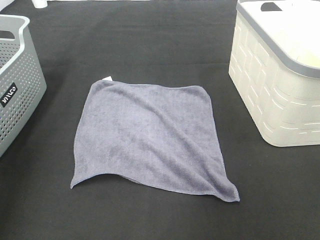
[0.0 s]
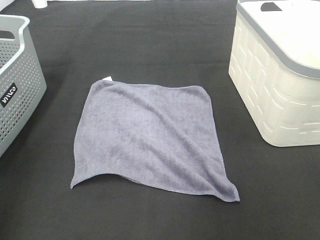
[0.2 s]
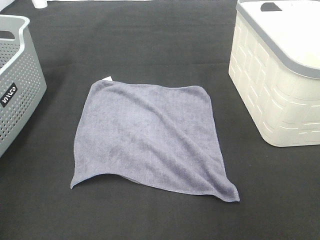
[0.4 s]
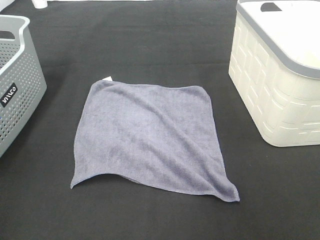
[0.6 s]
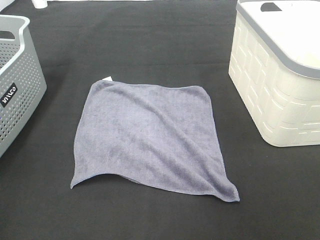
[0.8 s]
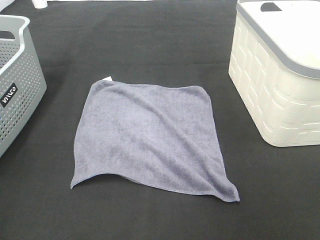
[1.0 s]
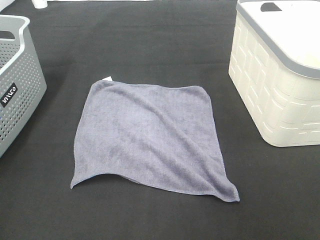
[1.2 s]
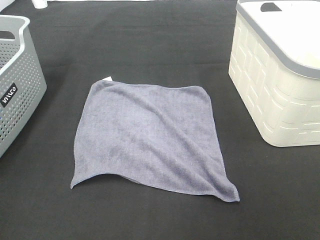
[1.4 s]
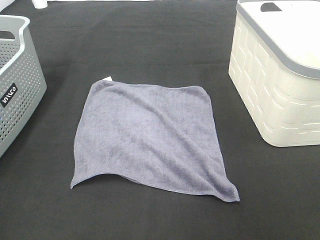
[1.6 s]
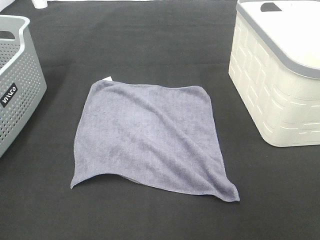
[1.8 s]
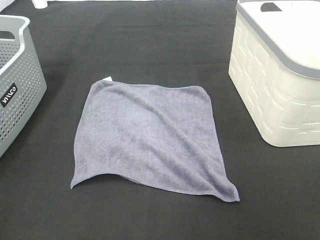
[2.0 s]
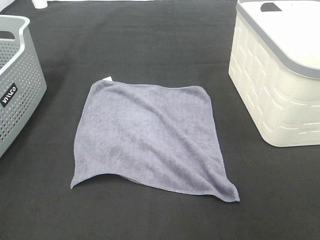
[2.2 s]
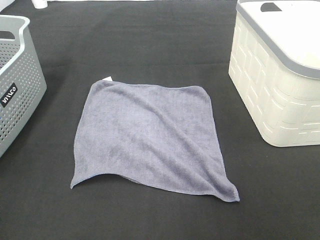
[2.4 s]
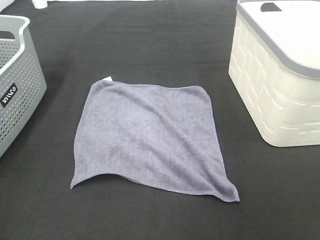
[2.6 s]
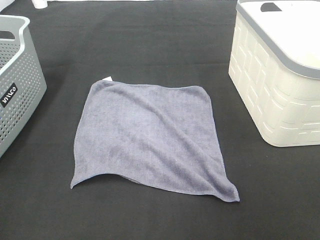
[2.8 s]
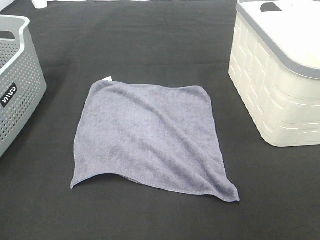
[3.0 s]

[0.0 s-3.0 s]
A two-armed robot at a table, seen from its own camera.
Task of the whole recording: Remove the towel and place it.
0.0 to 1.6 s: The left gripper goes approximately 20 cm backward and downward.
1.6 to 3.0 s: The two grippers keep their place.

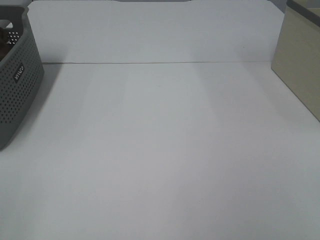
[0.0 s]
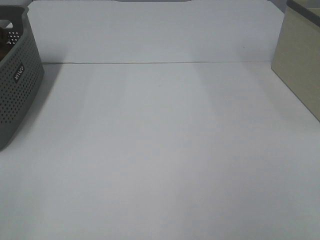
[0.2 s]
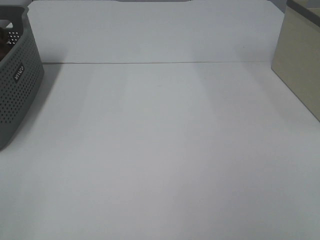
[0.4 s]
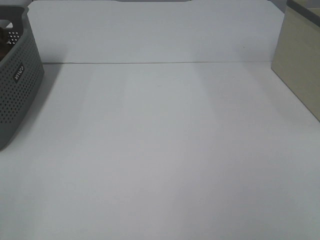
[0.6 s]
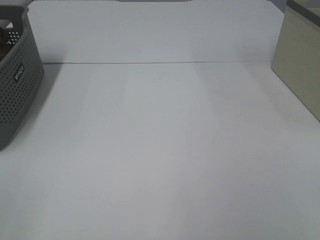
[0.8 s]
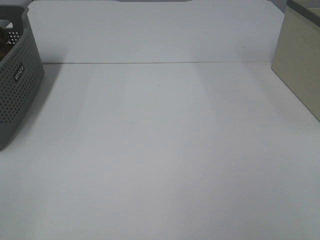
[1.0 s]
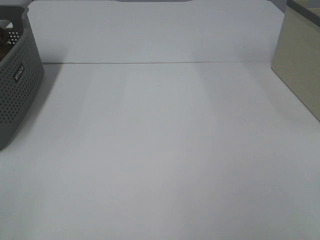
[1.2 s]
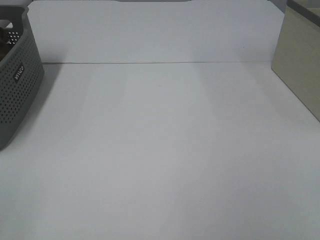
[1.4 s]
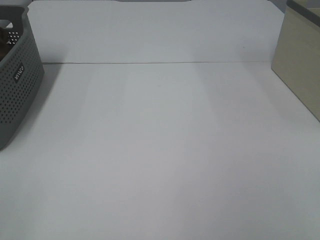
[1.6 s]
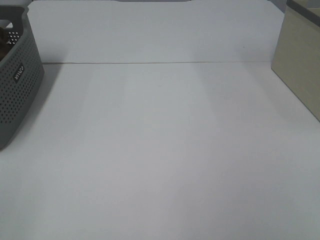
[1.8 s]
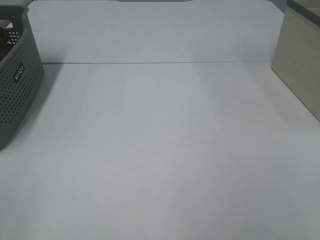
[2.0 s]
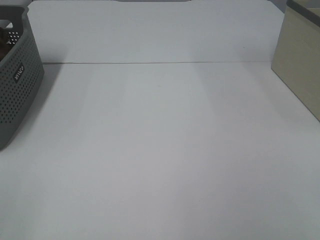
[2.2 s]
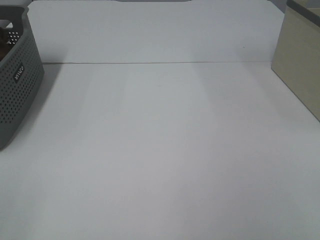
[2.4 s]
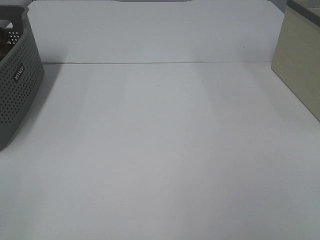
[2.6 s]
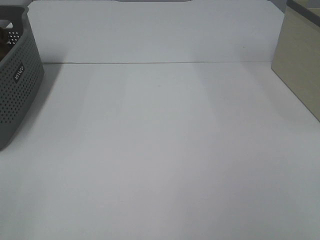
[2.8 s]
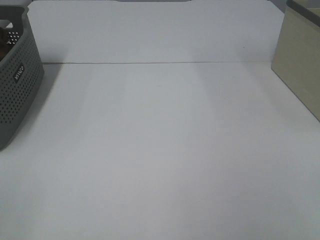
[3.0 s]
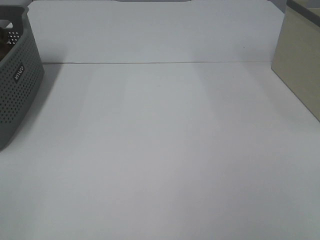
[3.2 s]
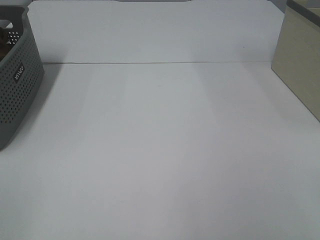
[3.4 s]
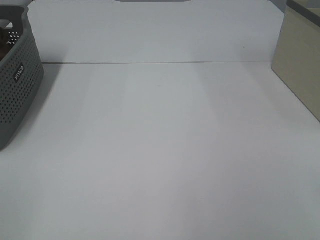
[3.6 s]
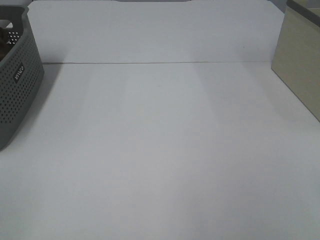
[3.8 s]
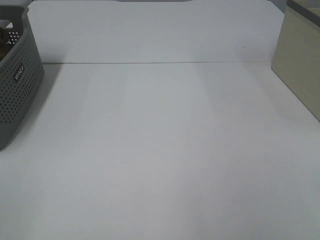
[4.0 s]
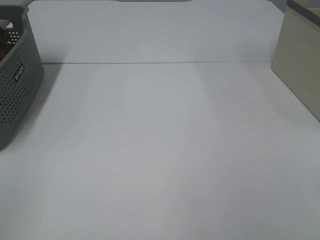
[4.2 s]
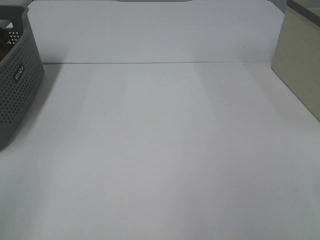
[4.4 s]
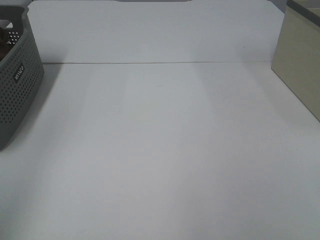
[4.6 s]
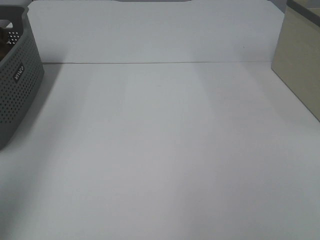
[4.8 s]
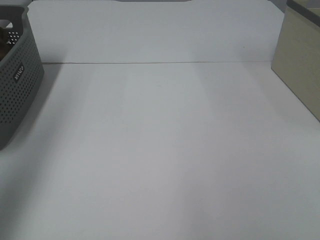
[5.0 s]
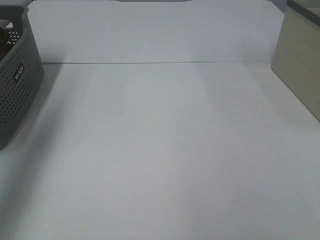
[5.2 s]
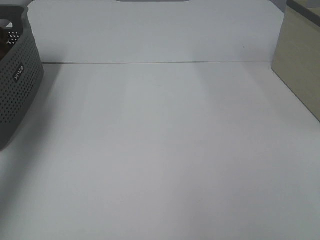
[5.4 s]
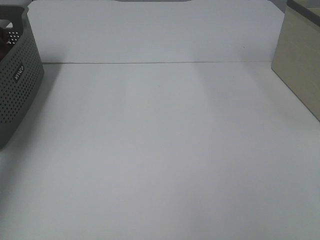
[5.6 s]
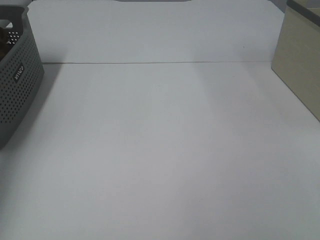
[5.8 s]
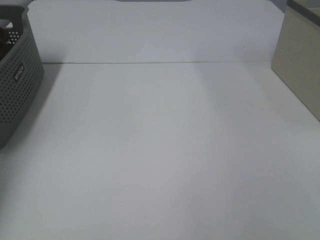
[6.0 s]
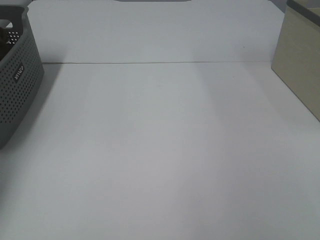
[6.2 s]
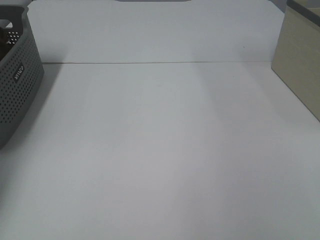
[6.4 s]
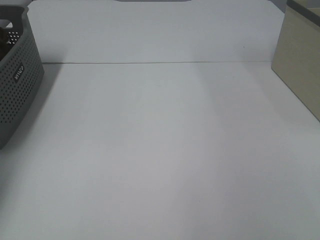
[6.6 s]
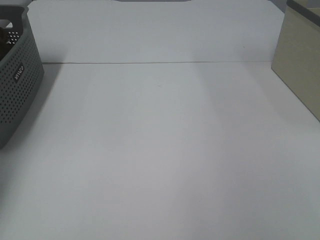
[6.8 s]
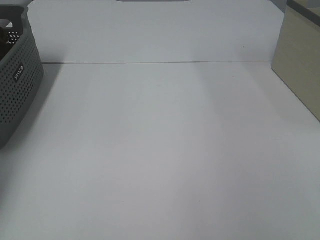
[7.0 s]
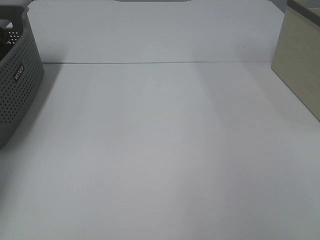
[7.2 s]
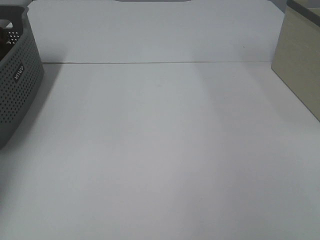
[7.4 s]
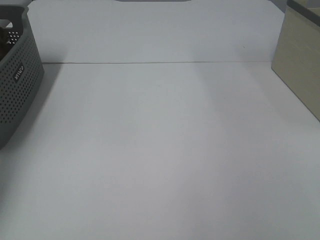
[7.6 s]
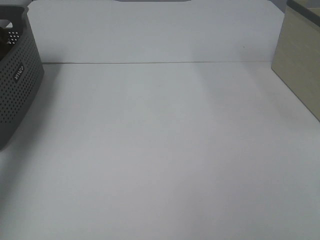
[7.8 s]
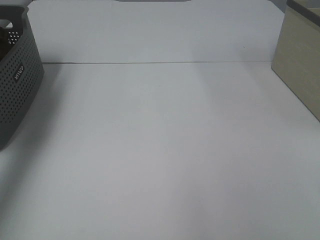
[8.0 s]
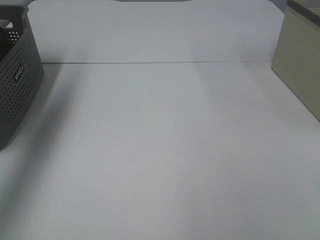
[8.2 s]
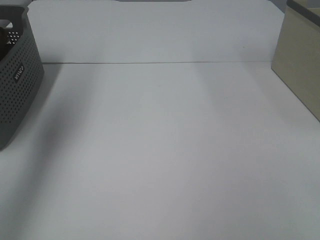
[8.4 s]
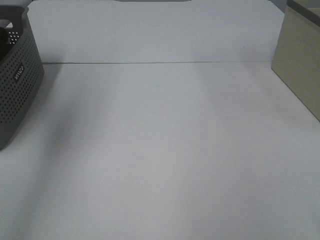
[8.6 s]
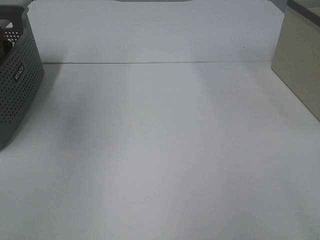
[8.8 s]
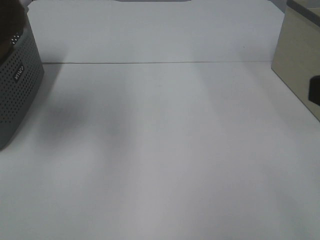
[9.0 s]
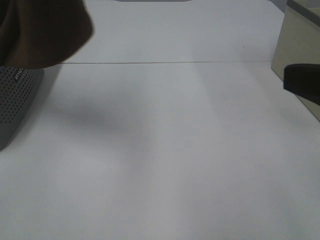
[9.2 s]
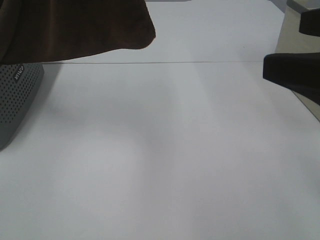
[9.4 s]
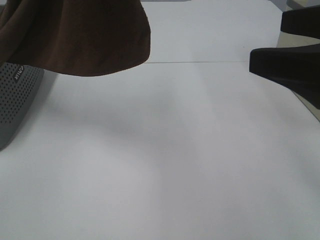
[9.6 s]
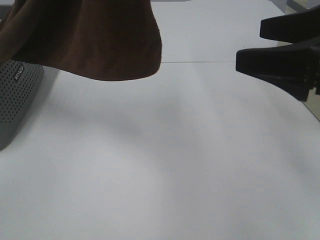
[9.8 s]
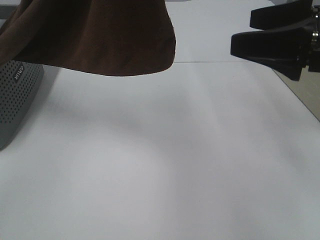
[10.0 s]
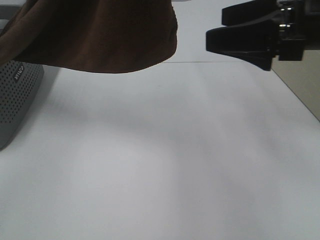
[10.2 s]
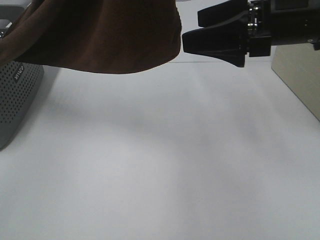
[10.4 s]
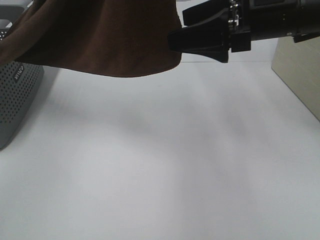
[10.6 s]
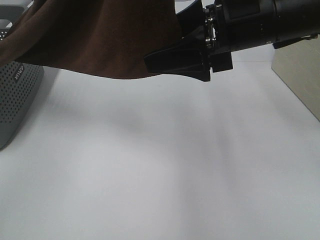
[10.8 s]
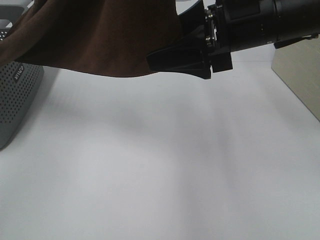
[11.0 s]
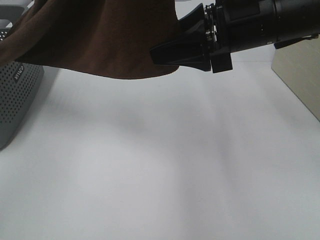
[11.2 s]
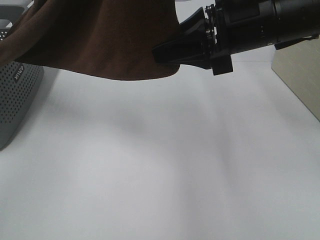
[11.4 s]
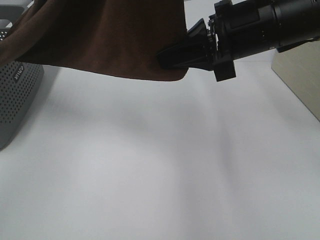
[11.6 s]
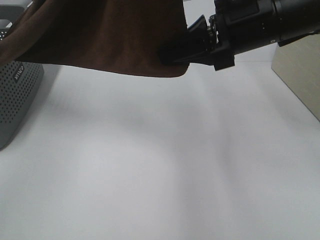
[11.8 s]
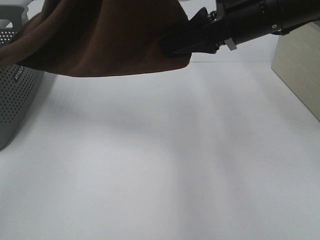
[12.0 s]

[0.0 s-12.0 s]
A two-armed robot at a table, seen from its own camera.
Task of the whole recording: Remove the towel and place it.
0.0 to 3.0 s: Both grippers stay put.
4.4 to 6.0 s: The left gripper is displaced forward by some 40 cm.
7.6 to 9.0 s: The right gripper travels forward by approximately 10 cm. The left gripper travels upward, to the right and backward by roughly 40 cm.
9.0 to 10.4 s: The right gripper goes some 20 cm forward; the left gripper travels to the right by about 10 cm.
10.4 to 12.0 s: The right gripper closes.

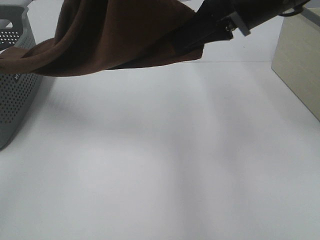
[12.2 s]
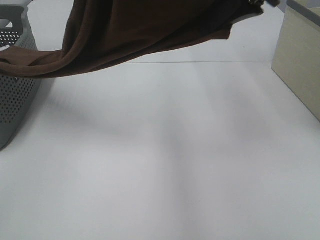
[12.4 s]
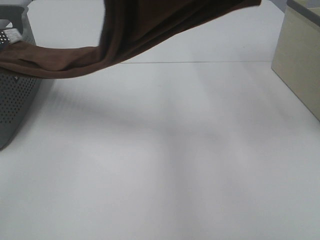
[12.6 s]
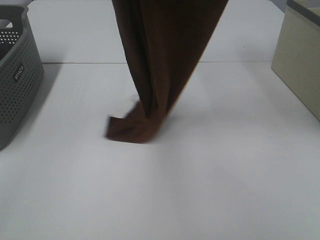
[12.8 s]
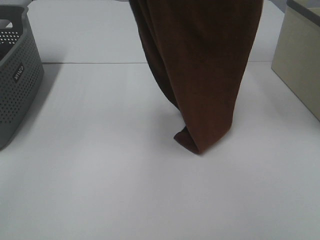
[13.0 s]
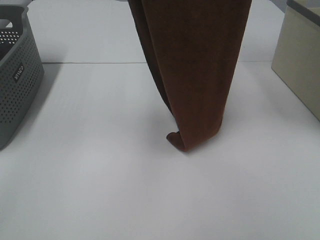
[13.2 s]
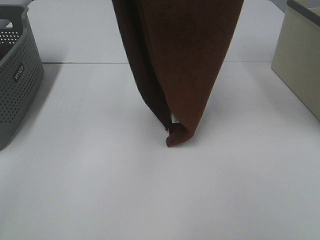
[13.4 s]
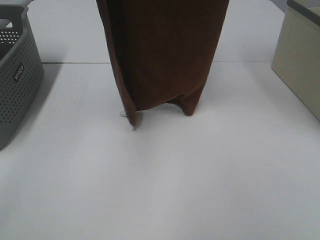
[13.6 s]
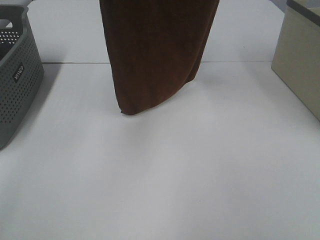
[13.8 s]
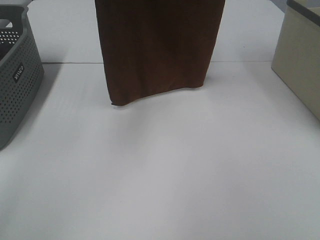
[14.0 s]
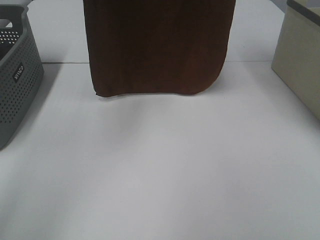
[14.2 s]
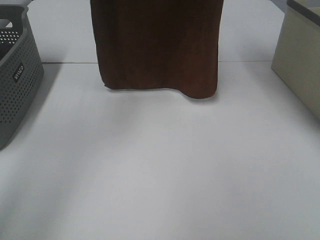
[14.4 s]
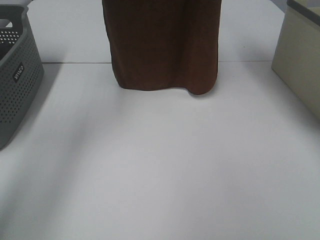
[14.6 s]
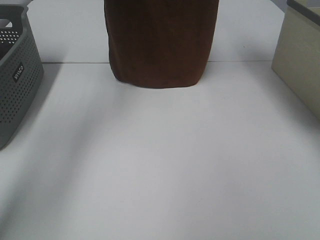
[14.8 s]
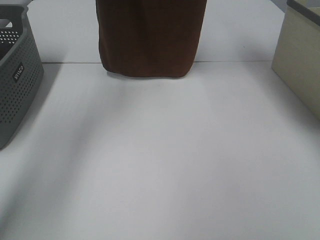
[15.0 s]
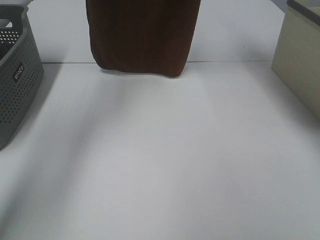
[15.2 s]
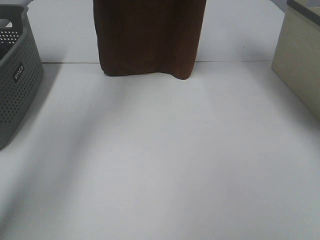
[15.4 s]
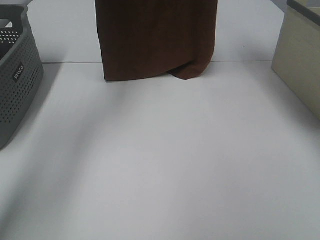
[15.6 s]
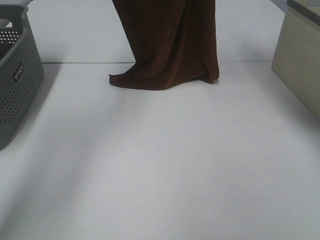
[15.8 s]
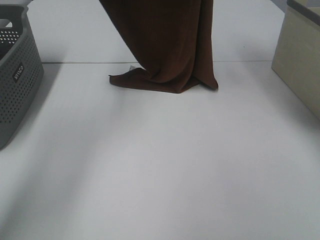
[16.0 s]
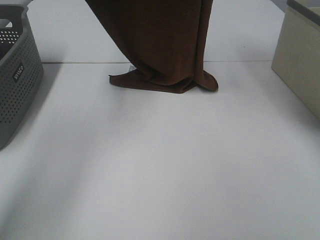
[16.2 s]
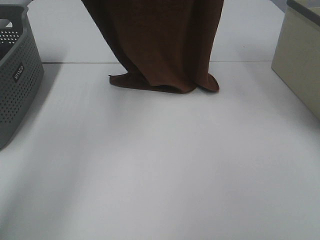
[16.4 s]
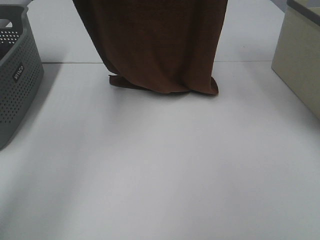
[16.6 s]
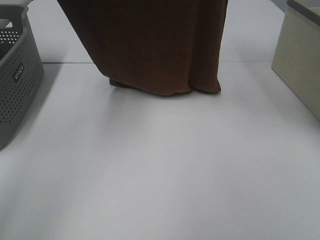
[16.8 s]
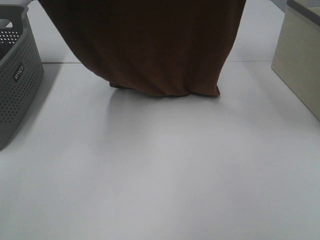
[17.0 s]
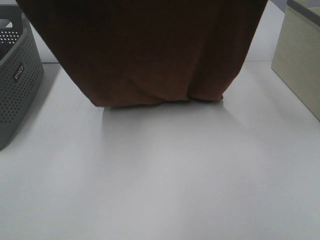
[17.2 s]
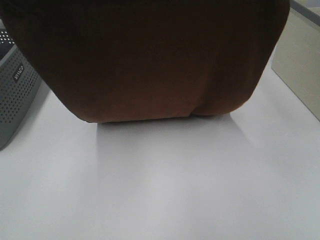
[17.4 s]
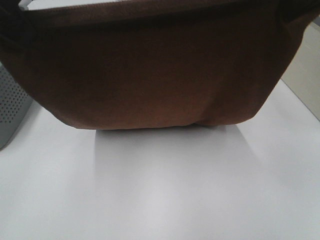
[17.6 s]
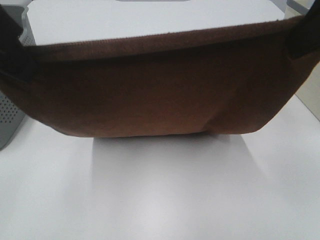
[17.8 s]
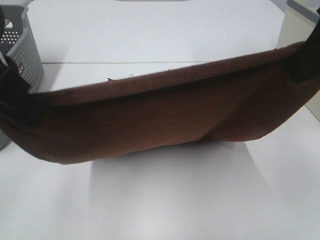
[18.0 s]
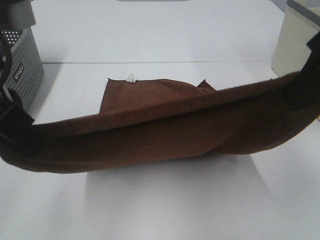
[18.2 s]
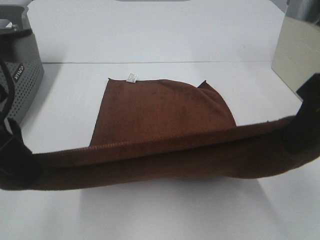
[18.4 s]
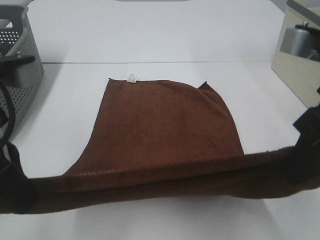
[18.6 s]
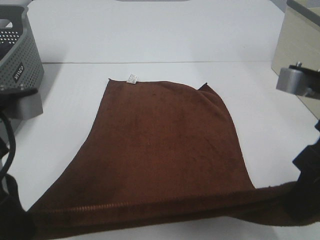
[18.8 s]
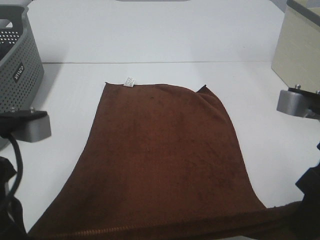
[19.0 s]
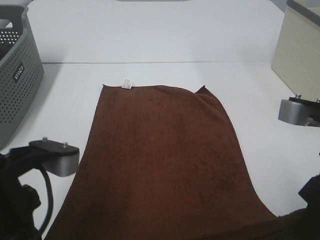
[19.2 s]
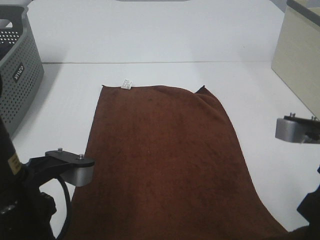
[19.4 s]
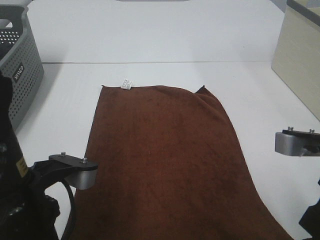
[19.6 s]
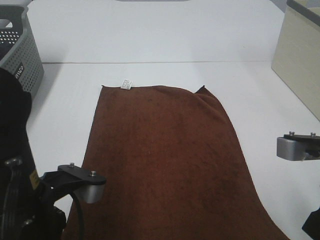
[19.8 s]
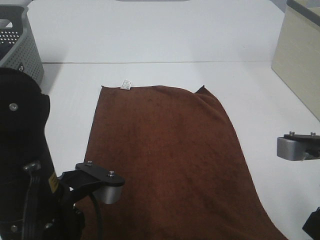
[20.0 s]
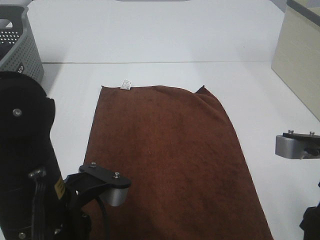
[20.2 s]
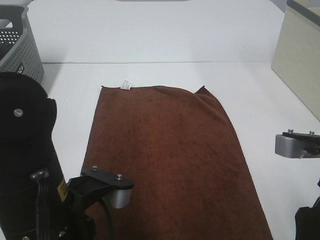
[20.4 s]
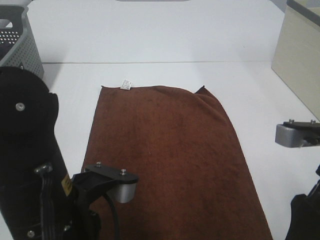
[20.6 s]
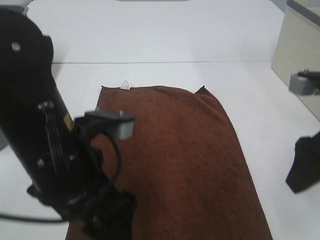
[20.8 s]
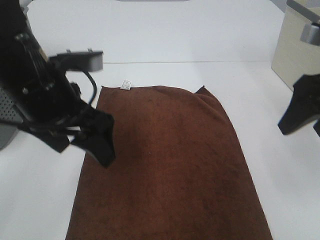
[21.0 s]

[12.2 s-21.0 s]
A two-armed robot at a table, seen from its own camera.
Task of the whole recording: Remove the towel and place it.
Step, 12.6 to 16.4 s: Left hand: spread the brown towel flat on the table.
Step, 12.6 to 16.4 s: Right hand: spread the brown towel flat on the table.
12.2 to 13.6 s: The right gripper is displaced upward by some 20 cm; the left gripper goes roughly 10 cm forward and to the left.
13.6 to 15.2 s: The left gripper shifts approximately 15 cm forward. The right gripper is displaced forward by about 10 cm.
15.2 to 16.6 s: Both grippers move backward, some 5 cm. The left gripper goes downward and returns, roughly 10 cm each way.
16.6 to 18.0 s: The two grippers go about 25 cm backward and downward.
18.0 to 19.6 s: The two grippers go some 15 cm downward.
19.6 to 21.0 s: The grippers both shift forward and upward by approximately 15 cm. The left gripper opens up. Meanwhile the right gripper opens.
